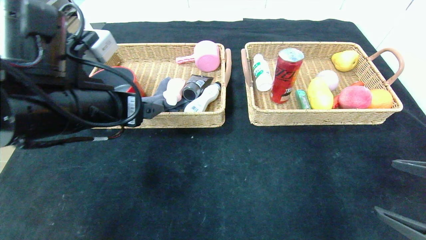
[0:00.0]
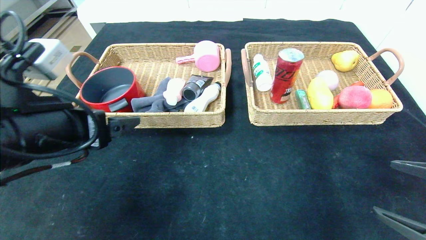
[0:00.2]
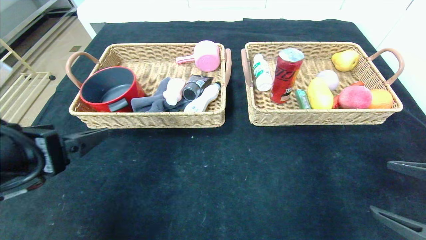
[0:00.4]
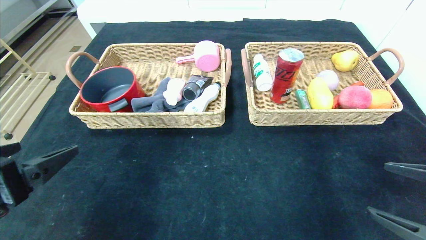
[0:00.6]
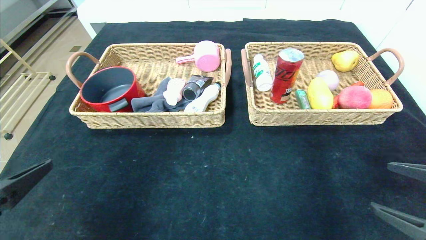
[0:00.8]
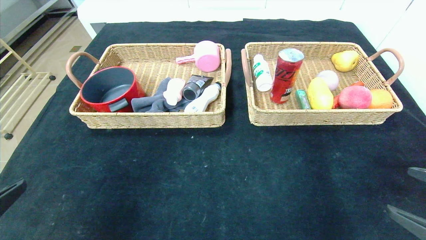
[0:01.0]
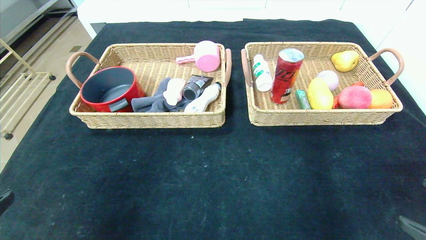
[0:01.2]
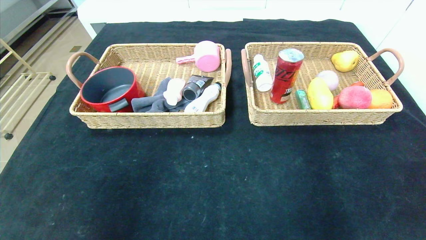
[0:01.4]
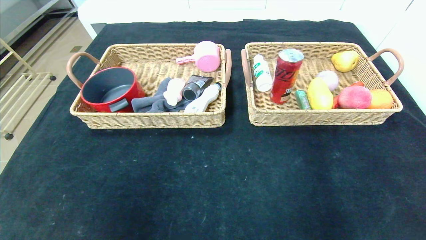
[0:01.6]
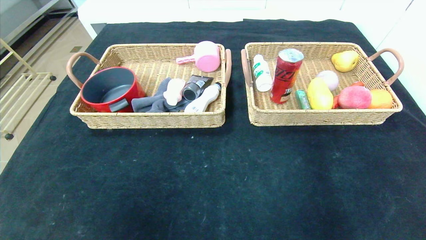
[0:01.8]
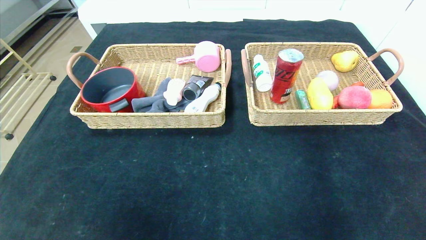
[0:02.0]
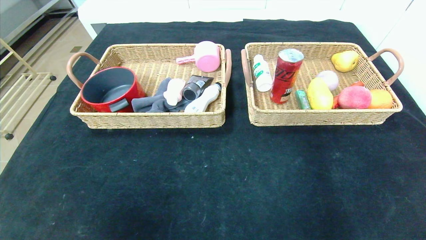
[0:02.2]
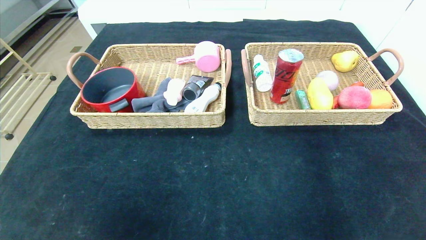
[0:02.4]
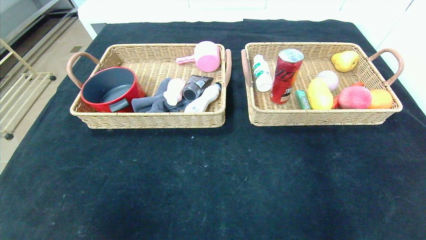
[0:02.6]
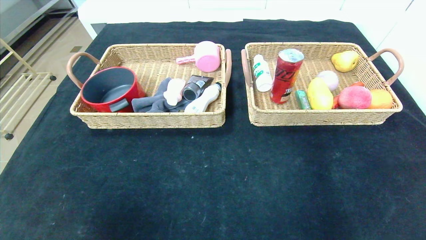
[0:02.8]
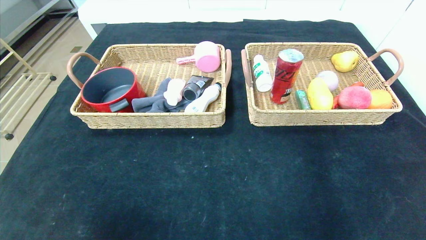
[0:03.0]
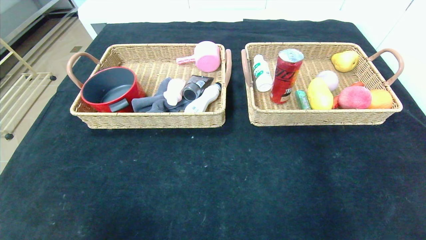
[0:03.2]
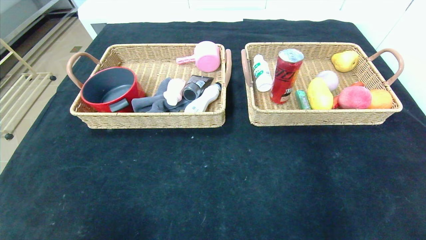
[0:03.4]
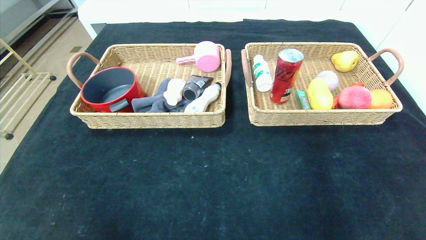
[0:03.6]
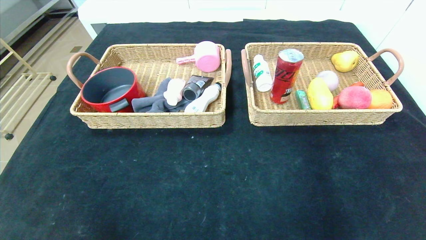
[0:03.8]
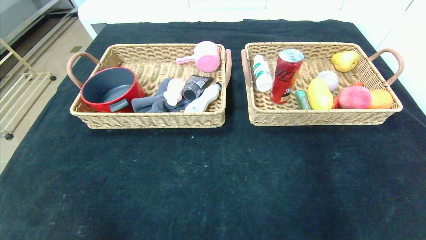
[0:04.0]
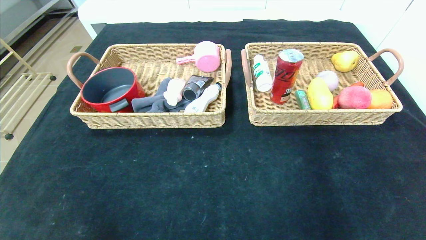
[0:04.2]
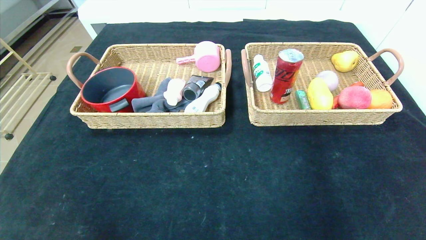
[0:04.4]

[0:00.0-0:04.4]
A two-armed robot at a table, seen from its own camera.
0:00.0 to 0:01.4: The left gripper heads backward and to the left, covering roughly 25 cm, while the right gripper moves backward, roughly 10 cm.
0:01.4 to 0:03.0: The left gripper goes some 10 cm downward. The right gripper moves backward and downward, approximately 10 cm.

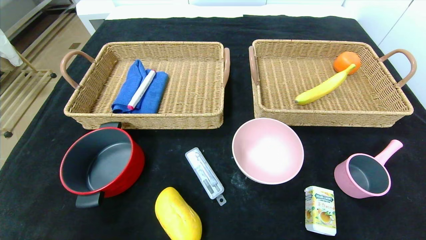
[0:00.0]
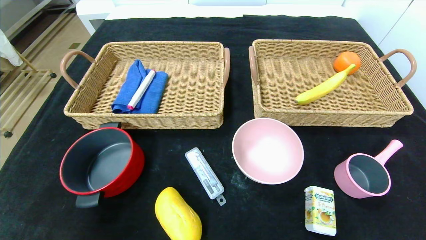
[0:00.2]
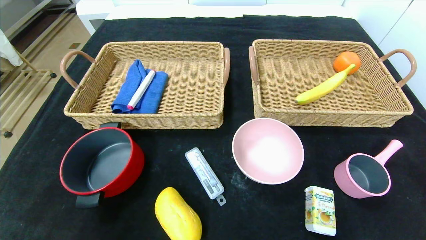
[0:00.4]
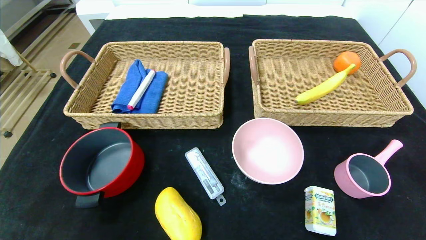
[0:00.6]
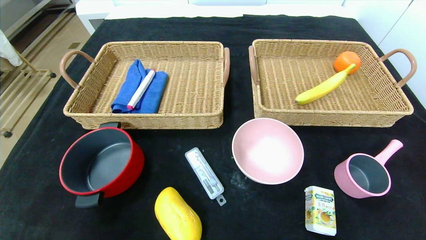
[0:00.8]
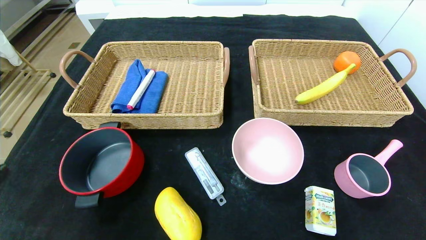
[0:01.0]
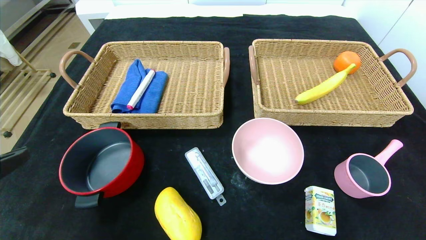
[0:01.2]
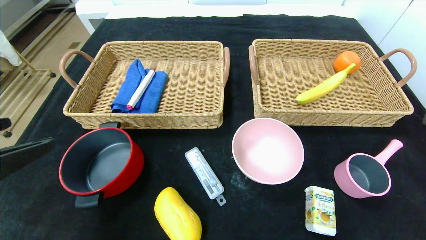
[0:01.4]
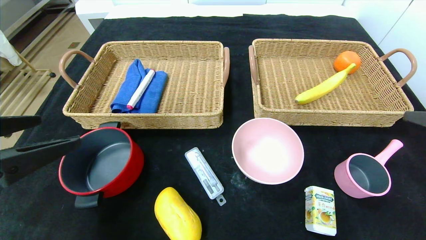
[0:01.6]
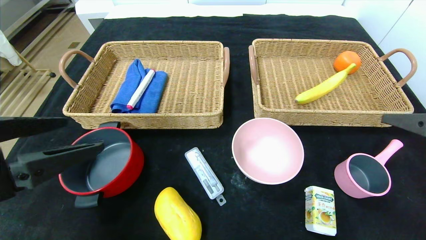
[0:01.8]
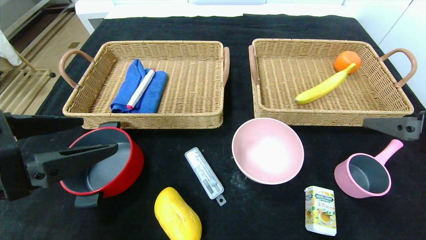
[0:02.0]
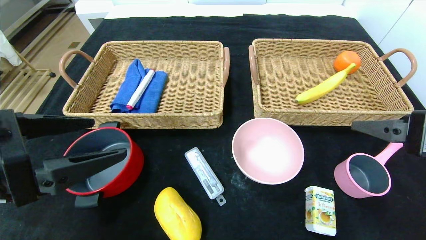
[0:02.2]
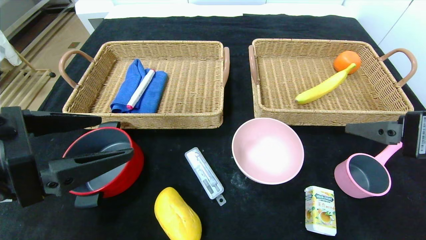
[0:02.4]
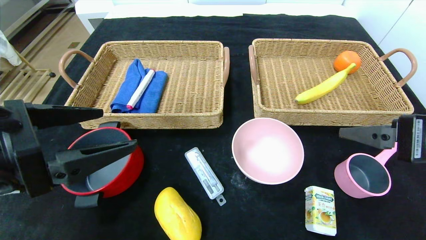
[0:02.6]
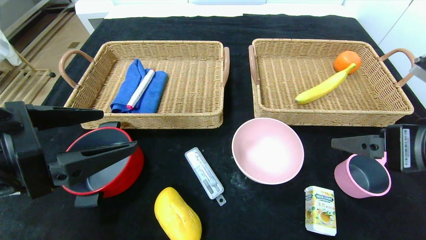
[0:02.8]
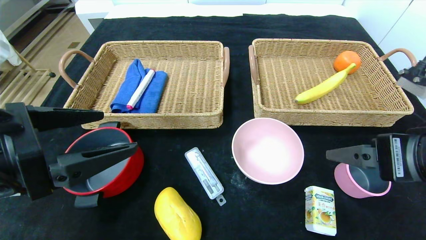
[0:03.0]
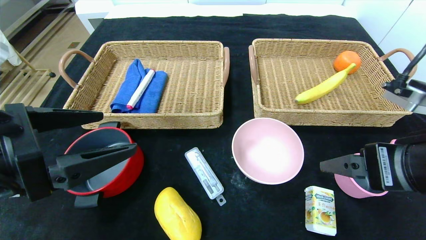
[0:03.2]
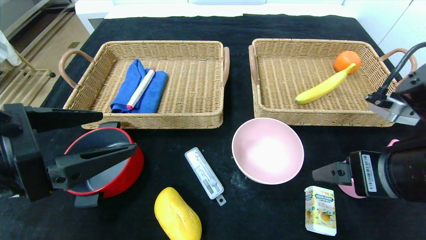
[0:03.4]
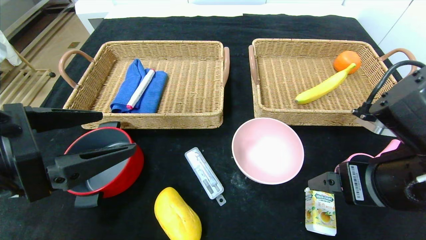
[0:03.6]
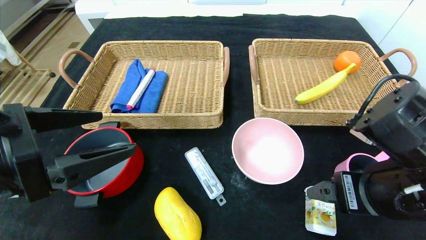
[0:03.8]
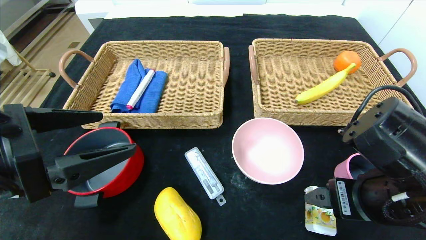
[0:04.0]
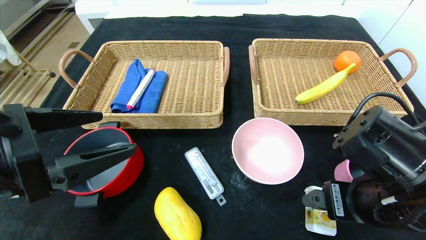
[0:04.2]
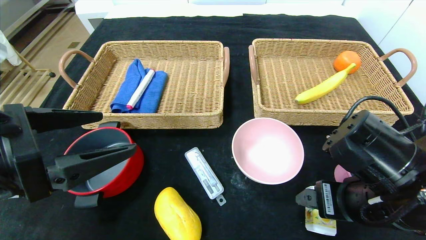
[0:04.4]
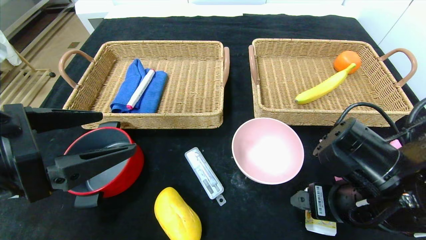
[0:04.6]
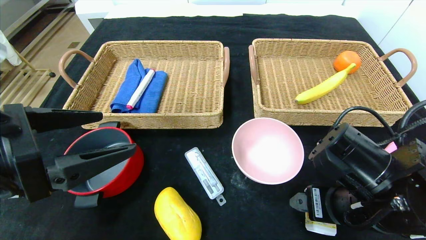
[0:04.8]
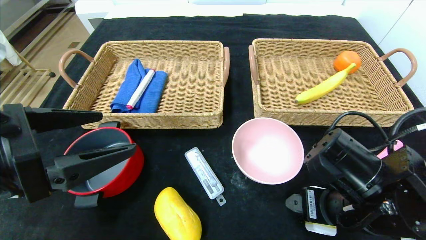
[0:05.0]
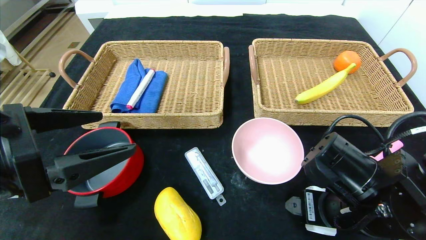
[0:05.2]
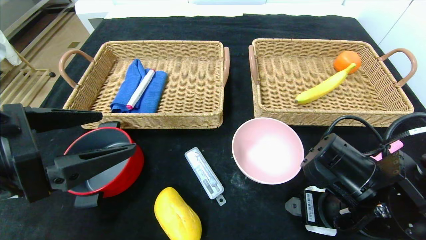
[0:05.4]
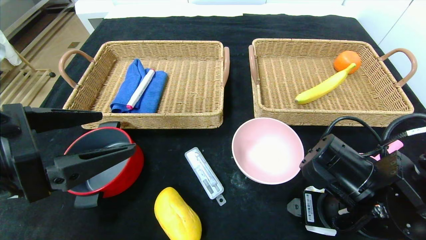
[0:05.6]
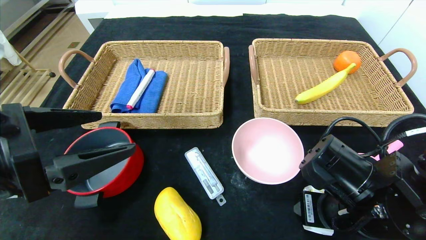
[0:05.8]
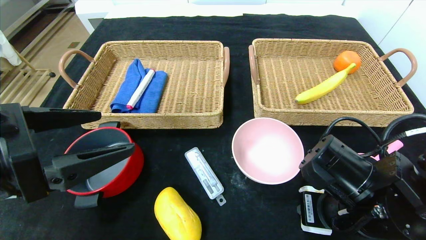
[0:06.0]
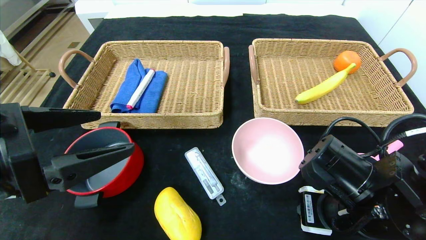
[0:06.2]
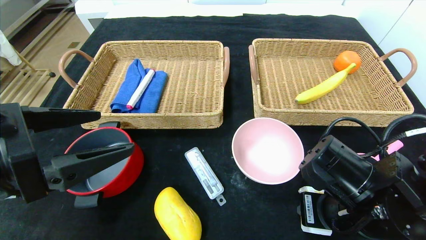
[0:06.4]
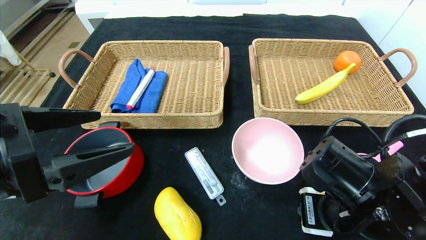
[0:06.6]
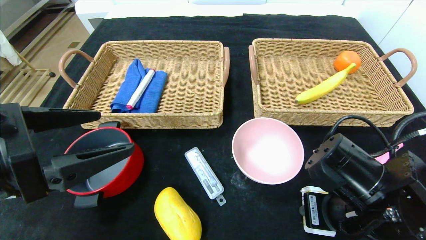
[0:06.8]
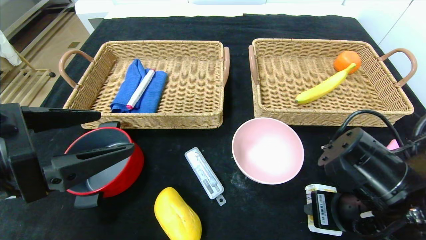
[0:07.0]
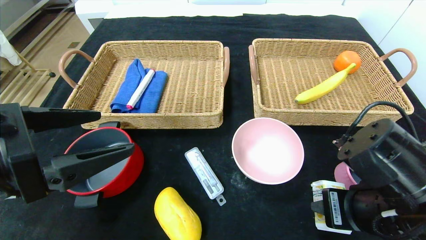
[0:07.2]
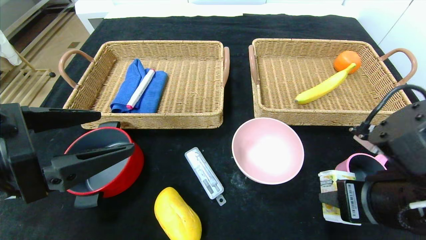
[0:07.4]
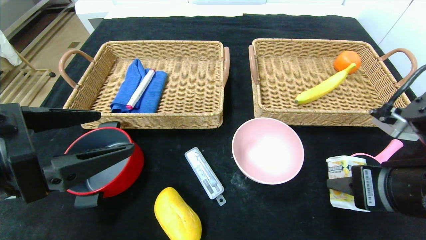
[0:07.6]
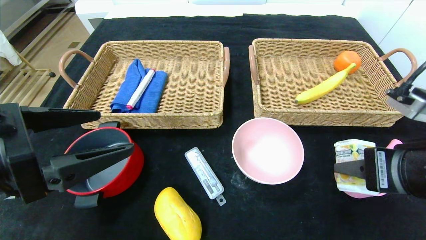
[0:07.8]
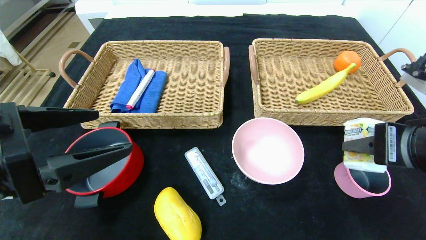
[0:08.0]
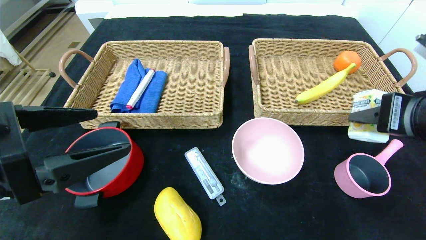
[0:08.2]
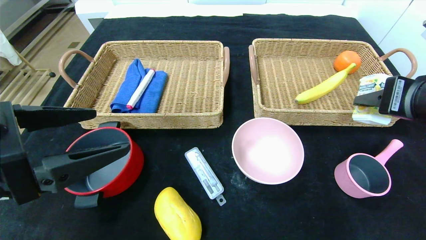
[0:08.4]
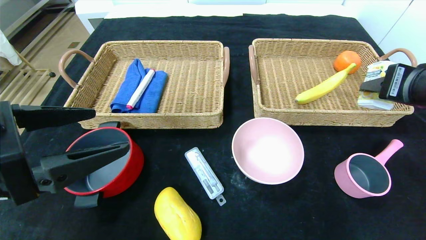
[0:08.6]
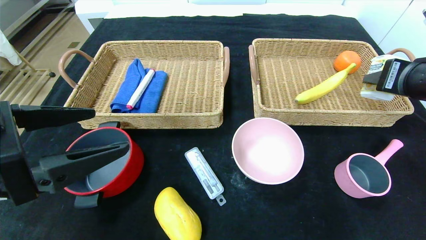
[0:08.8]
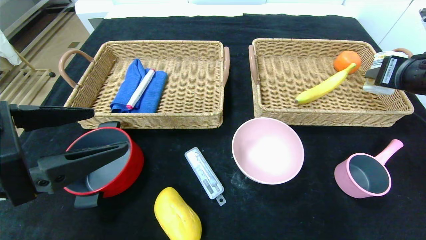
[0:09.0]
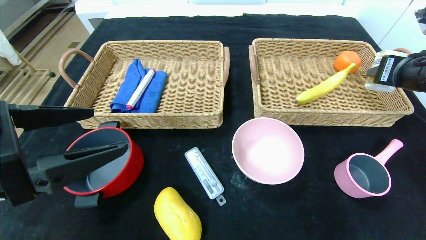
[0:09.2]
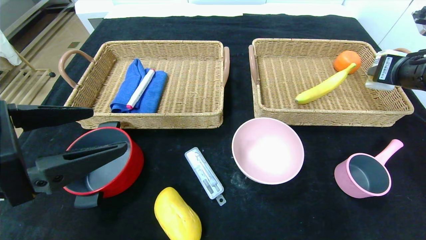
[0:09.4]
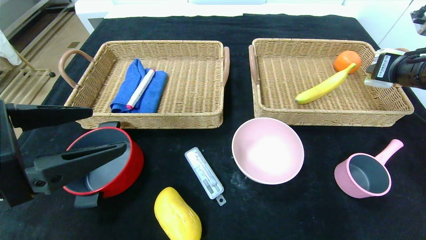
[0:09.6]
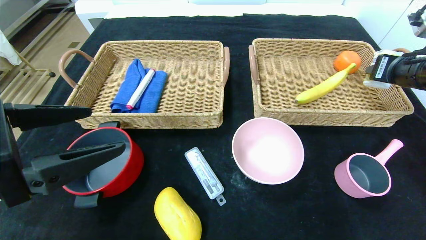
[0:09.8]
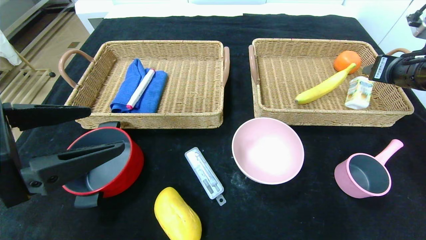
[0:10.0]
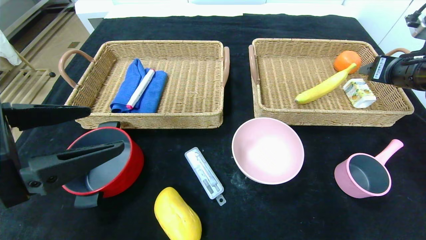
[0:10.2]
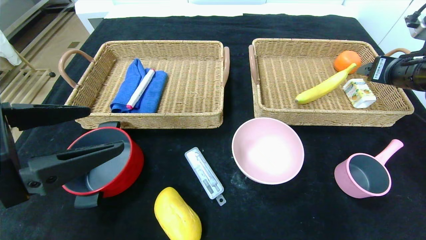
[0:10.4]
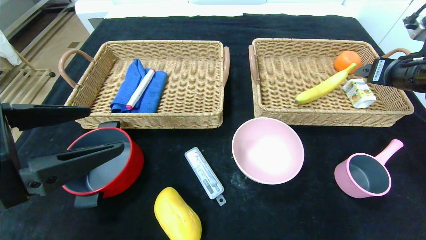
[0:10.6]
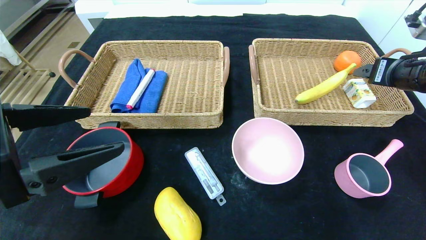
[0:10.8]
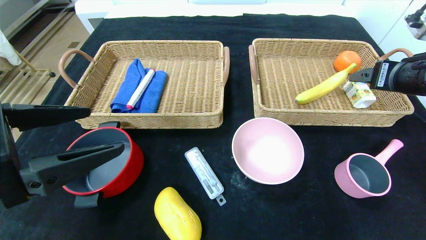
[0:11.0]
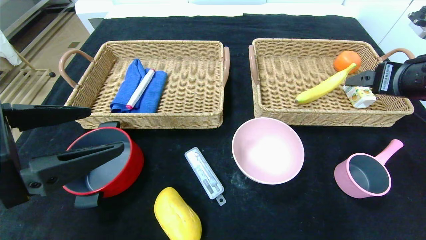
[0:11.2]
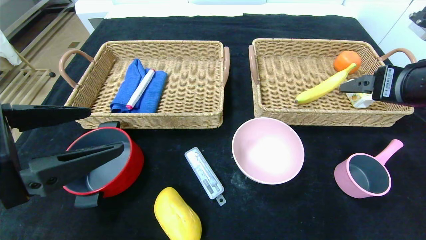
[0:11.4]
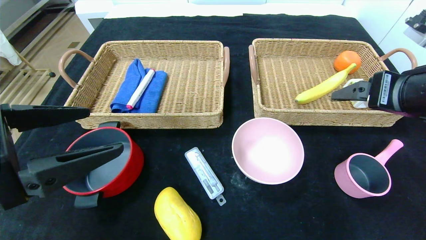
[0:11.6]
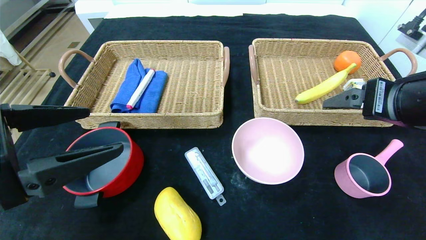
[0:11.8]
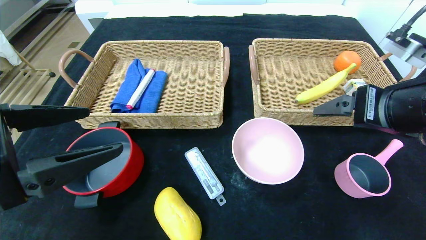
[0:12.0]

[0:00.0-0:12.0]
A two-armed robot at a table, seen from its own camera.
Step, 0:00.0 to 0:10.0: Grasp the square chewing gum and put it in the right basket.
0:00.0 to 0:01.6: The right gripper goes some 25 cm forward and upward, while the left gripper moves upward and forward, about 20 cm.
0:01.6 to 0:03.0: The right gripper shifts approximately 10 cm to the left.
0:03.0 to 0:04.4: The right gripper shifts about 5 cm downward.
0:04.4 to 0:06.0: The right gripper closes its fingers.
0:06.0 to 0:07.6: The right gripper heads upward, covering roughly 5 cm.
0:07.6 to 0:09.0: The right gripper heads forward, to the right and upward, covering roughly 15 cm.
0:09.0 to 0:10.4: The right gripper shifts by approximately 5 cm, and opens.
0:10.4 to 0:12.0: The right gripper heads backward and to the left, covering about 15 cm.
